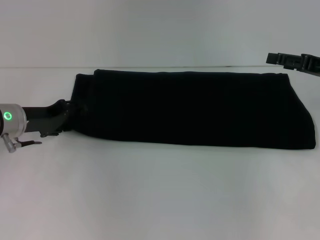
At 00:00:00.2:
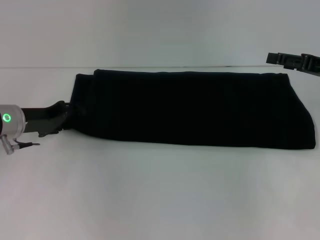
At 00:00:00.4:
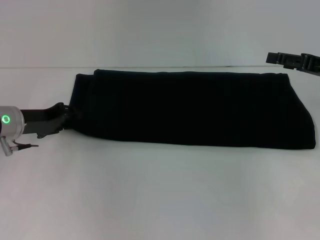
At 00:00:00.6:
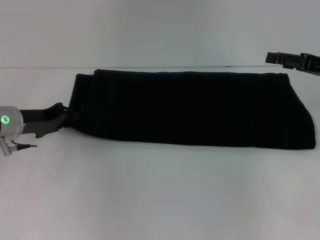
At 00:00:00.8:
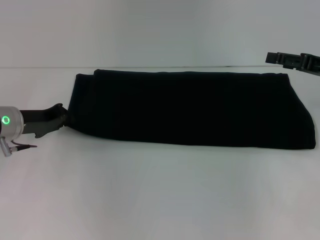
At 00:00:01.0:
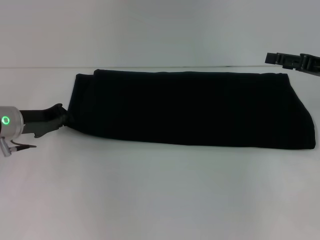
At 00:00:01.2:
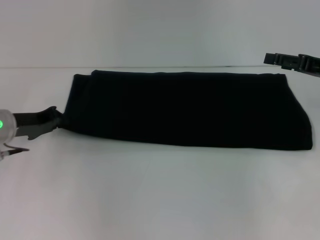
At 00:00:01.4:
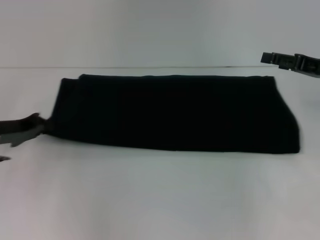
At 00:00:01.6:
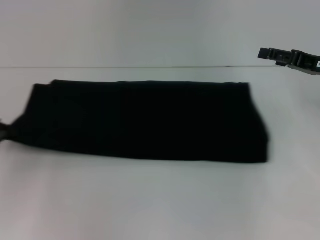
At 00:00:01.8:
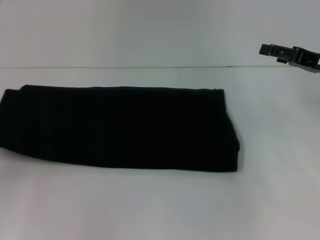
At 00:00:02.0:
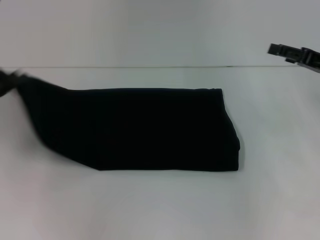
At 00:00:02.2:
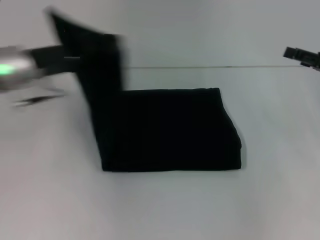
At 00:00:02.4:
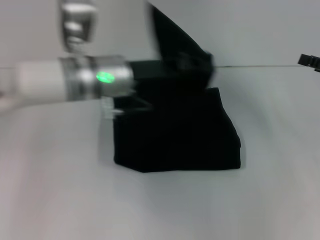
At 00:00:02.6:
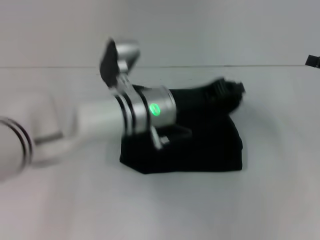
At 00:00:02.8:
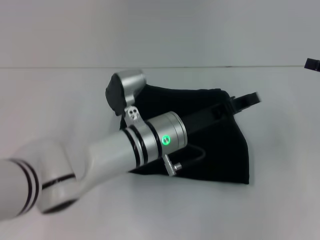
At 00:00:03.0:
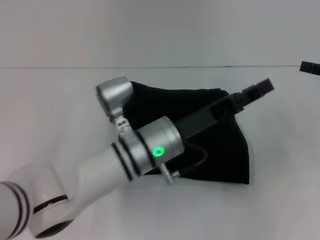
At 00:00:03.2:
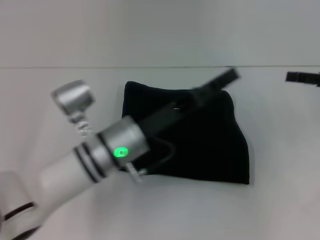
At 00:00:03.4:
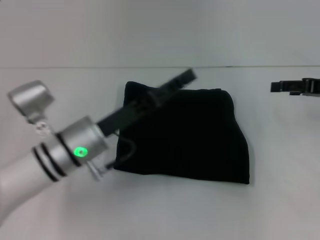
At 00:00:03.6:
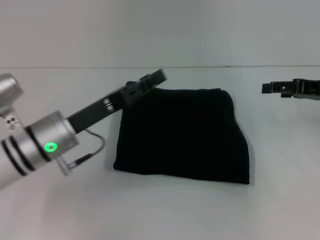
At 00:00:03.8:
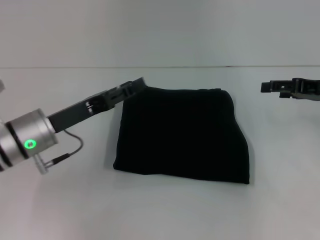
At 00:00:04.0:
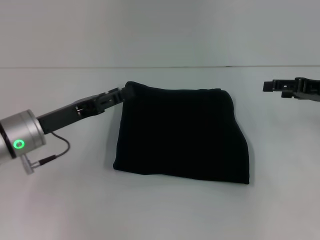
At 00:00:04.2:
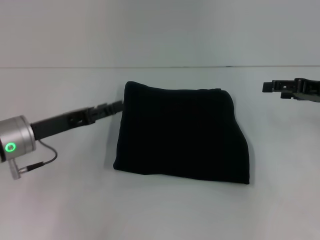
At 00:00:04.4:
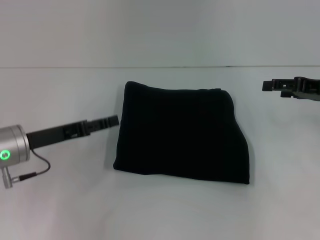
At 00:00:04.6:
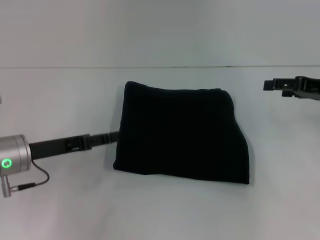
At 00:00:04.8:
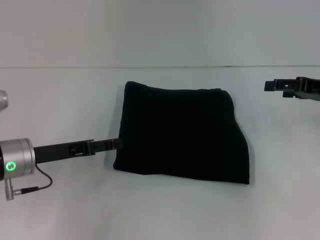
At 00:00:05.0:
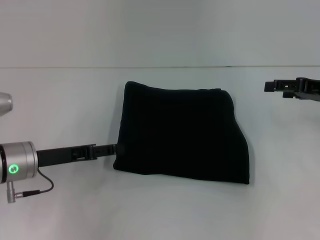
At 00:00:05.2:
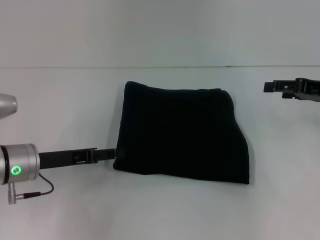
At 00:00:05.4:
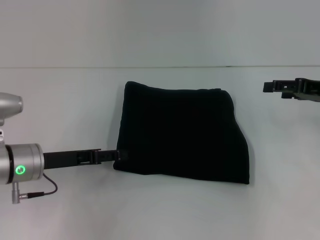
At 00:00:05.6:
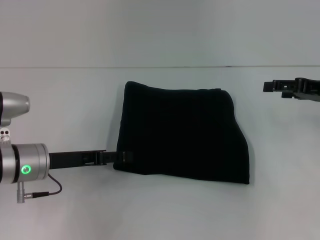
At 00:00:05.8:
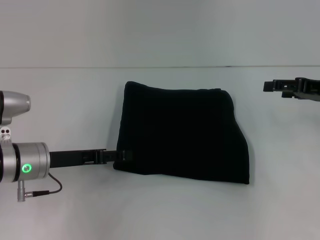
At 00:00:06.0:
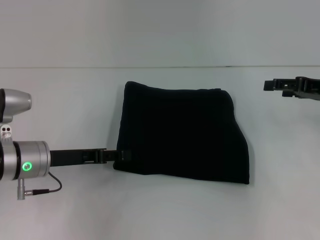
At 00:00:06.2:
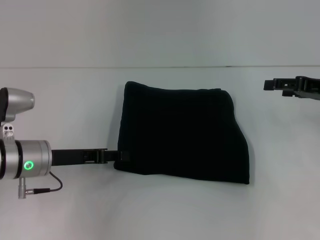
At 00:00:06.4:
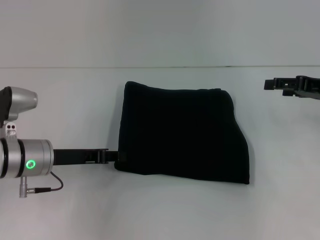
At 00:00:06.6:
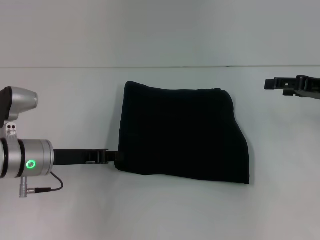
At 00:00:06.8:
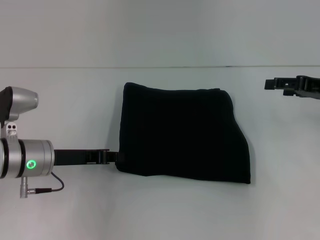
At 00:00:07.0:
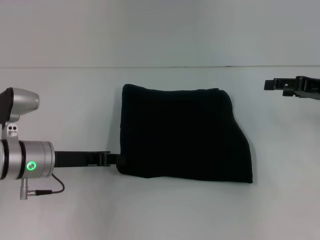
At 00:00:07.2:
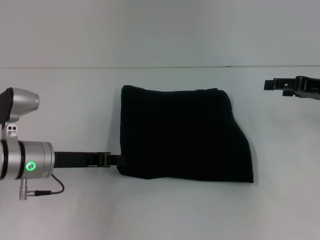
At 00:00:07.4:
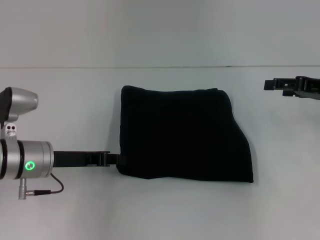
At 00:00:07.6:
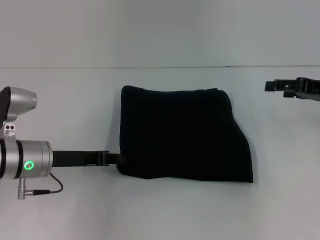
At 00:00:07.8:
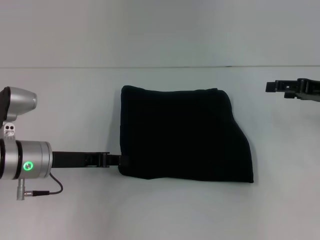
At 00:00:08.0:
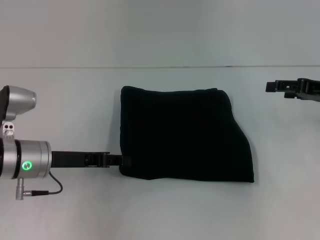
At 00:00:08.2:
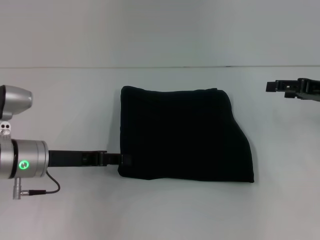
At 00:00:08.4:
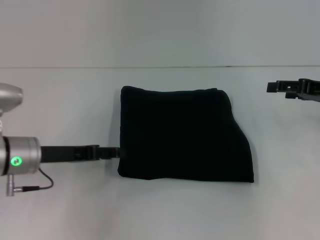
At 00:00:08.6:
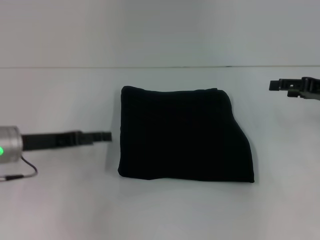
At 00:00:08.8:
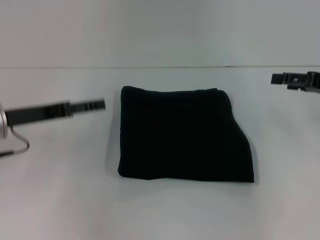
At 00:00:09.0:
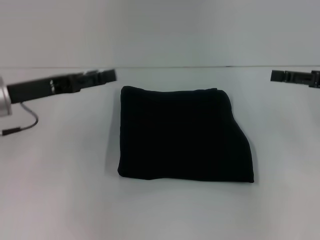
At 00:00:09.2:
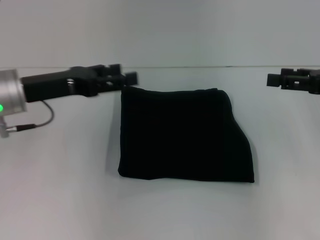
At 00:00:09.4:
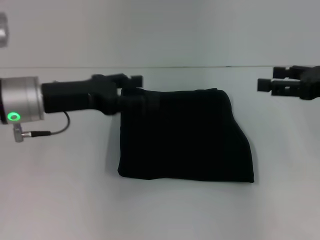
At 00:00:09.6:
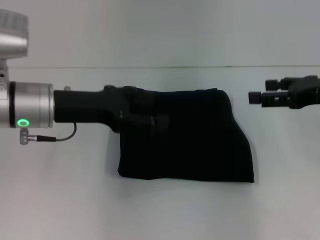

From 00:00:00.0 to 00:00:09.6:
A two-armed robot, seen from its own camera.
Step, from 00:00:00.0 to 00:00:02.6: Fold the clothes with your left hand.
From 00:00:00.0 to 00:00:01.6: The left gripper travels to the left and backward by roughly 10 cm, and closes.
From 00:00:01.6 to 00:00:03.2: The left gripper moves left and right over approximately 35 cm, changing direction 2 times, and opens its fingers.
From 00:00:03.2 to 00:00:04.8: The left gripper heads to the left, covering approximately 15 cm.
From 00:00:04.8 to 00:00:06.4: The left gripper closes.
From 00:00:06.4 to 00:00:08.0: The two grippers keep their place.
From 00:00:08.0 to 00:00:09.6: The left gripper is displaced upward by roughly 10 cm, and opens its fingers, while the right gripper moves approximately 5 cm.

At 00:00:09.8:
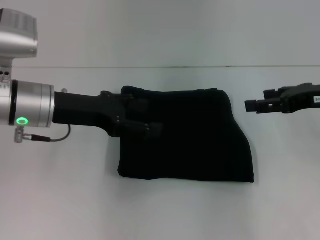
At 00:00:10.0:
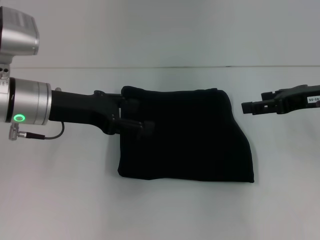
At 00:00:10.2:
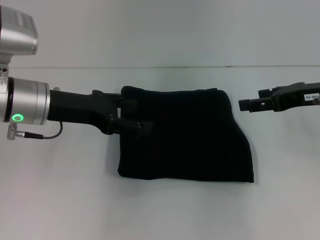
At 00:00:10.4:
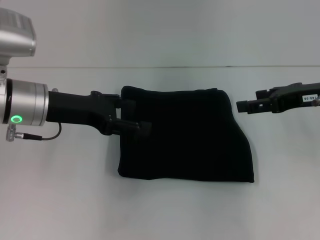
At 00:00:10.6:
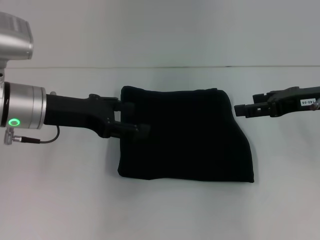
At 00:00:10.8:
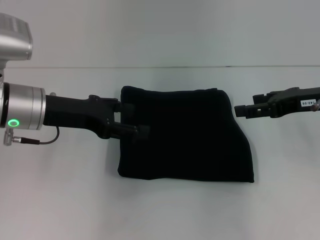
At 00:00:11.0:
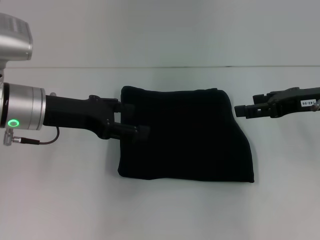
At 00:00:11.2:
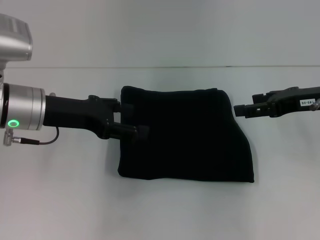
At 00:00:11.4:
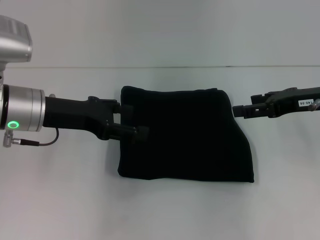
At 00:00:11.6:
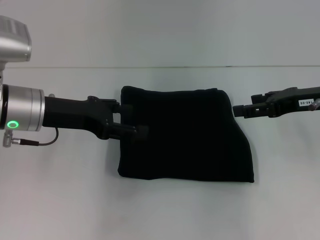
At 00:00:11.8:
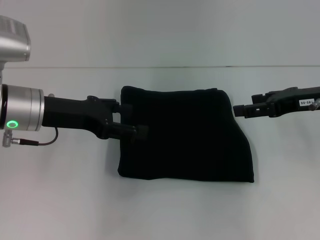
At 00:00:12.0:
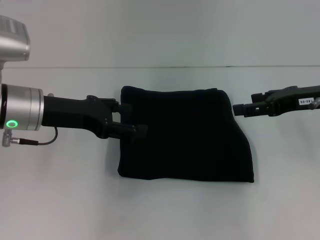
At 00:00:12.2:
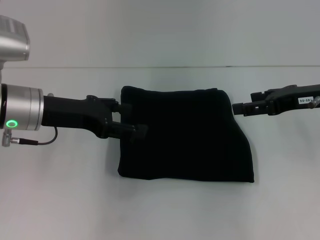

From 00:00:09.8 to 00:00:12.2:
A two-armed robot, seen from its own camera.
From 00:00:09.8 to 00:00:11.0: There are only small adjustments of the grippers.
From 00:00:11.0 to 00:00:12.2: Both grippers stay put.
